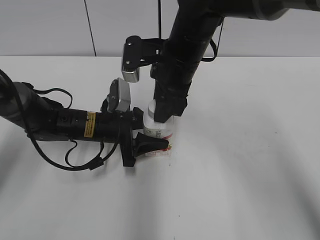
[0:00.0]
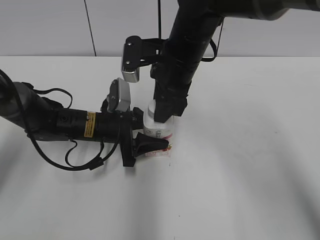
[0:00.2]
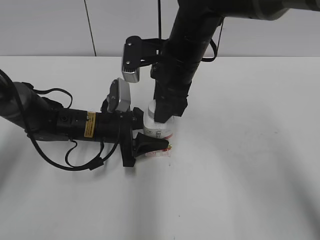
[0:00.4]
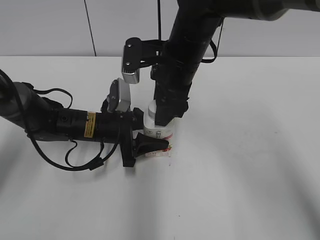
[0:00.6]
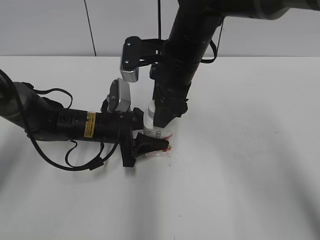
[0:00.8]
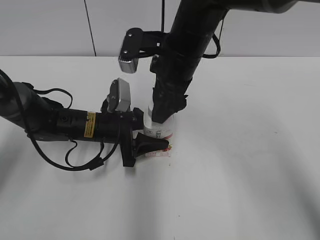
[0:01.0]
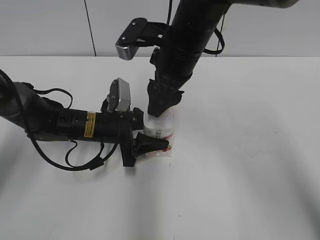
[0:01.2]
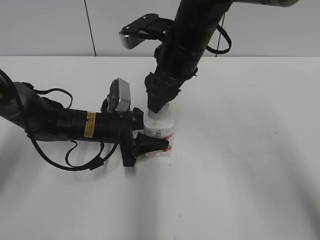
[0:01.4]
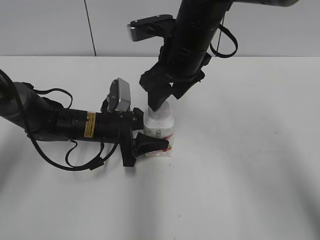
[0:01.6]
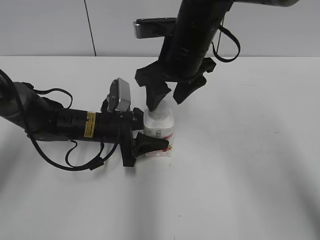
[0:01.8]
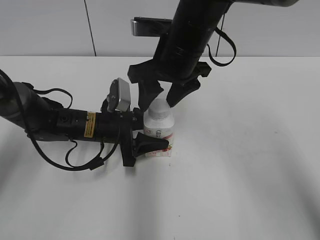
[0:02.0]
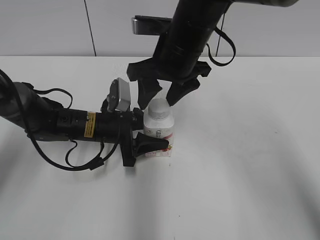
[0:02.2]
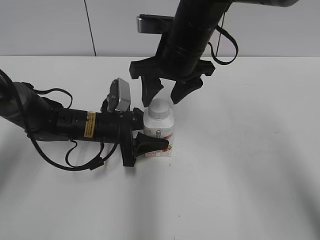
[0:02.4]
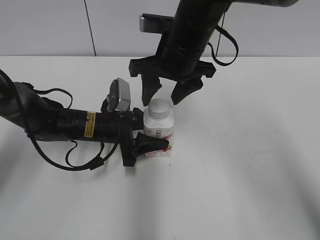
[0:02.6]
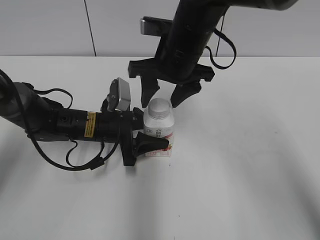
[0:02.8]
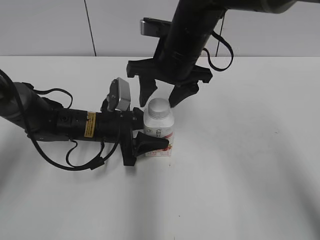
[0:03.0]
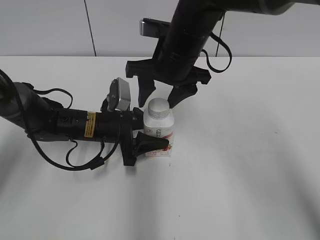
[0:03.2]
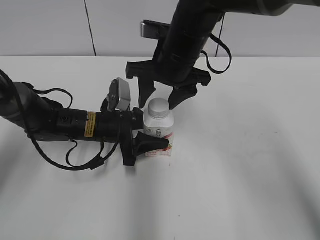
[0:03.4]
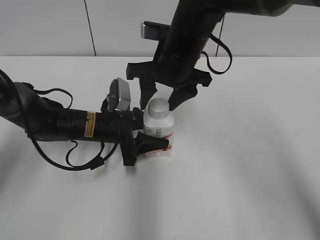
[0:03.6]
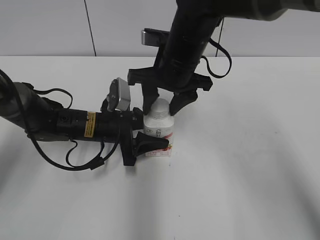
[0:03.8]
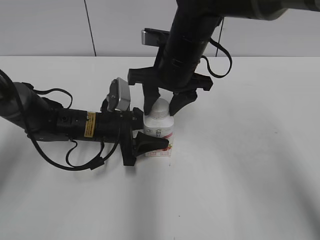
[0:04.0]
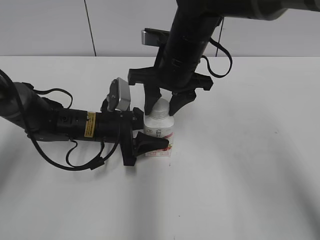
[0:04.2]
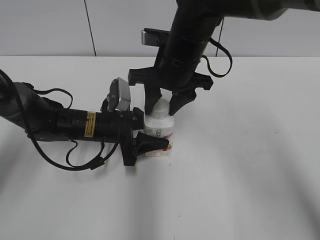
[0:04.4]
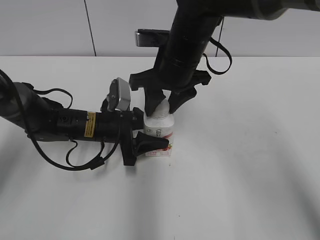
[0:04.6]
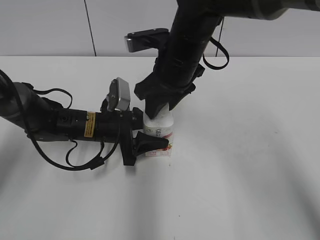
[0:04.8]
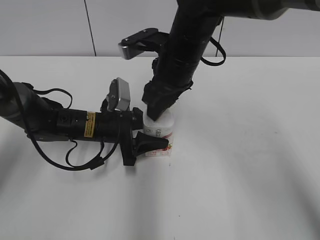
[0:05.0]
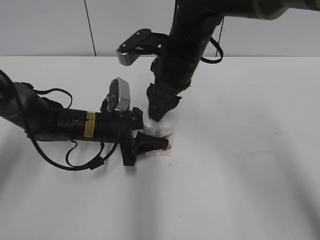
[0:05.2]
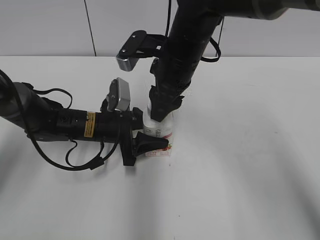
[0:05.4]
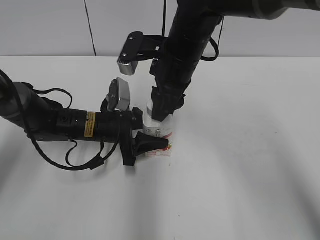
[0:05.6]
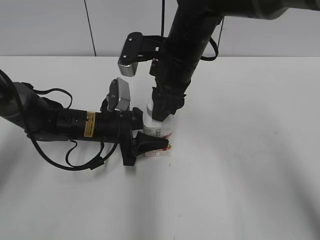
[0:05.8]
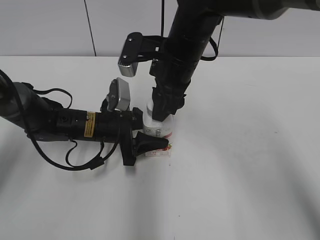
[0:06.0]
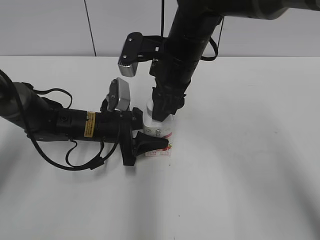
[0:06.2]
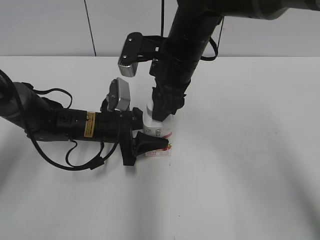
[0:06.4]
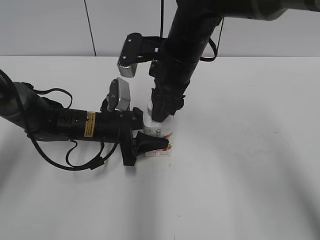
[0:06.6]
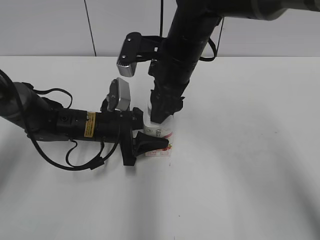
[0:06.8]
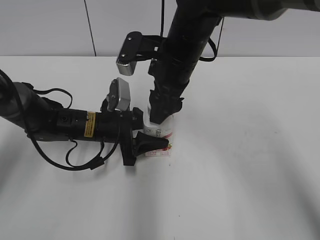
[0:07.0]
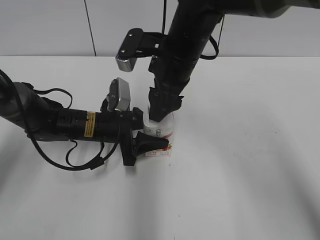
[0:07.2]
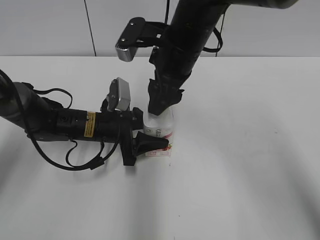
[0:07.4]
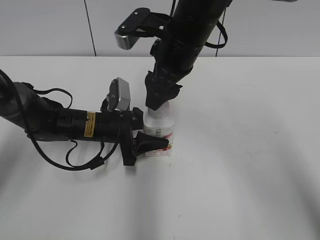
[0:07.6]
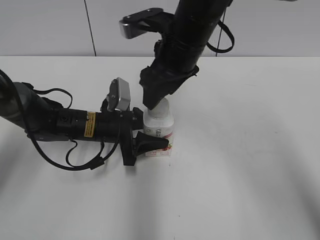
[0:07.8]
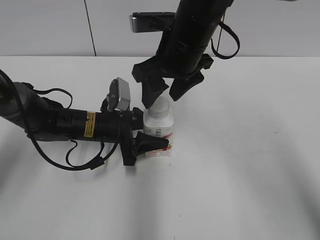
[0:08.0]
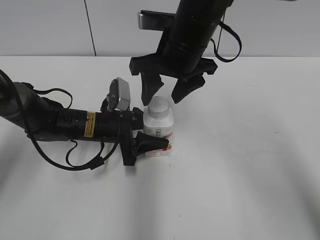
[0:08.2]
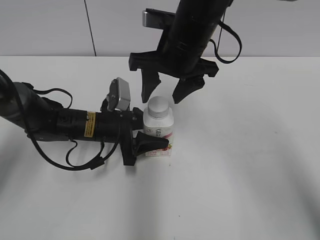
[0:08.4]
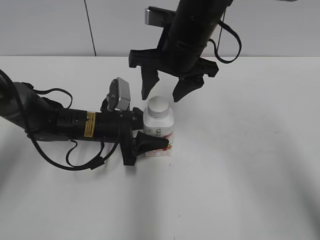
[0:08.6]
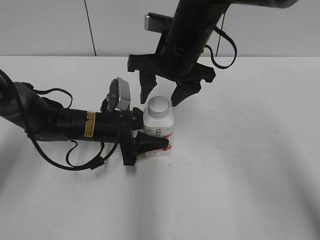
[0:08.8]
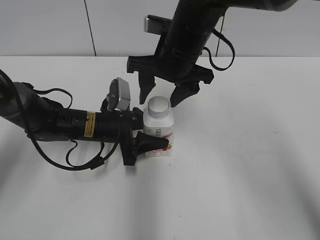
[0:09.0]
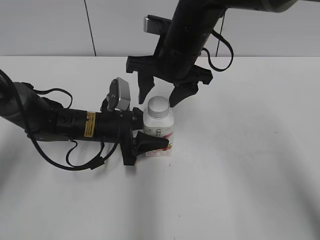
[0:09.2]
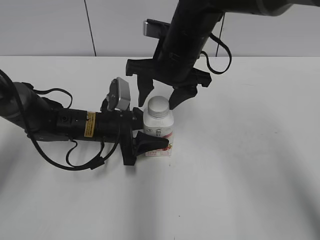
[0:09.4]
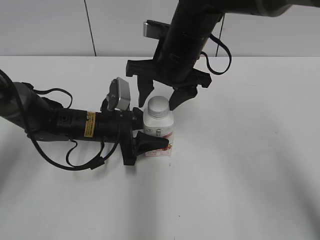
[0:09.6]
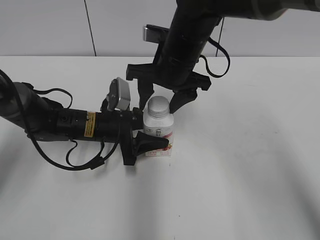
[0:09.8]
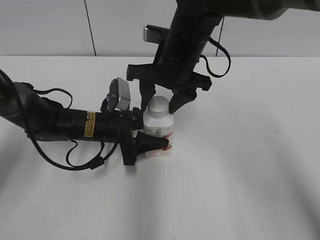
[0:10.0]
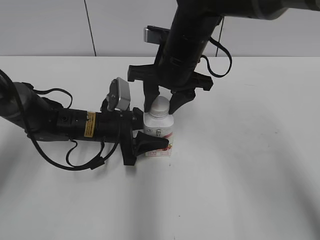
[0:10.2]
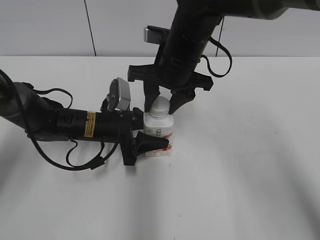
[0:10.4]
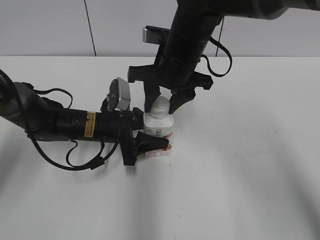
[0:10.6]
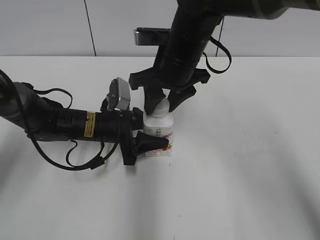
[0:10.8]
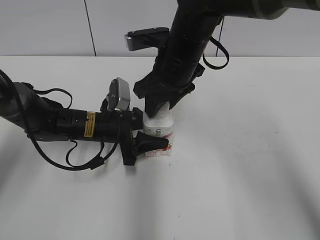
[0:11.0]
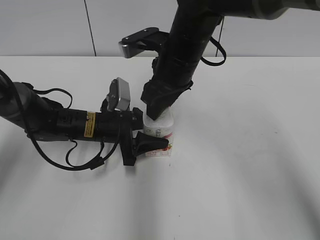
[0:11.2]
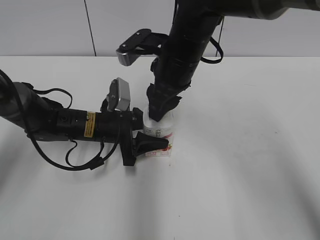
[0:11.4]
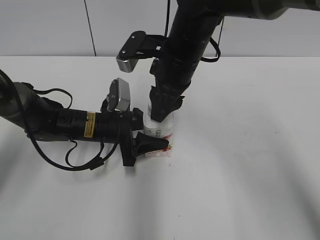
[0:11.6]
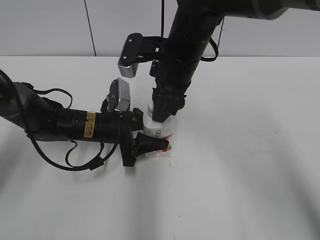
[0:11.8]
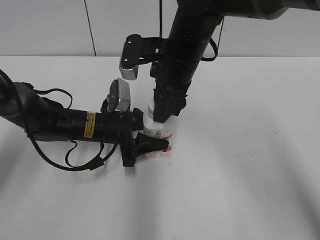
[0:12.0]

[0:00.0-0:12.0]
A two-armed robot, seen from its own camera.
0:00.0 to 0:01.6: The right gripper opens up.
0:03.0 to 0:04.4: The right gripper closes.
0:06.0 to 0:07.6: The right gripper opens its fingers.
0:09.0 to 0:10.4: The right gripper closes.

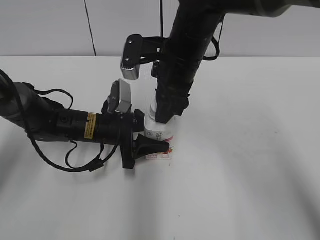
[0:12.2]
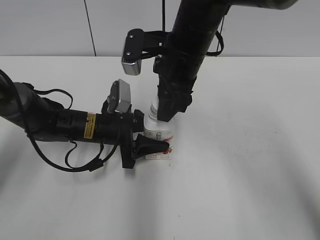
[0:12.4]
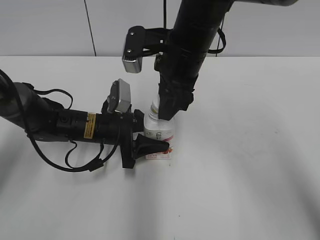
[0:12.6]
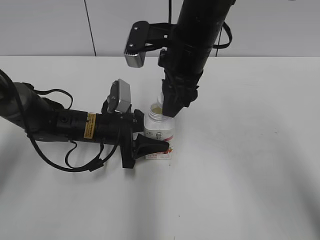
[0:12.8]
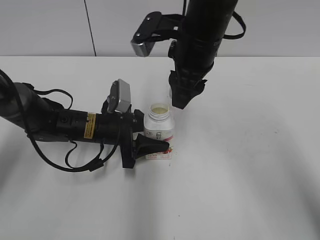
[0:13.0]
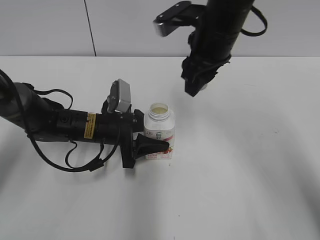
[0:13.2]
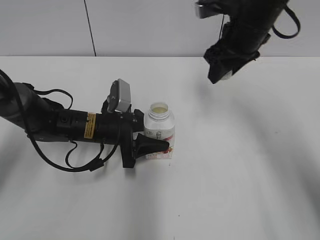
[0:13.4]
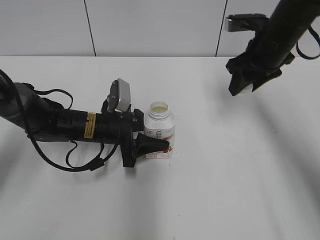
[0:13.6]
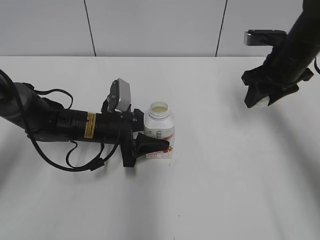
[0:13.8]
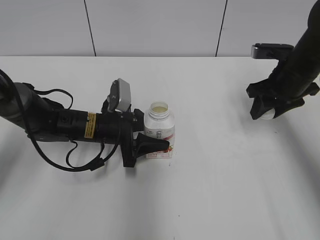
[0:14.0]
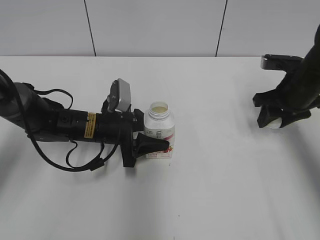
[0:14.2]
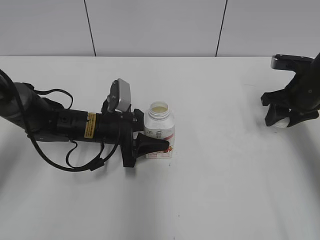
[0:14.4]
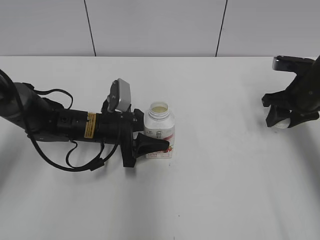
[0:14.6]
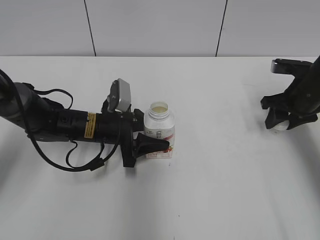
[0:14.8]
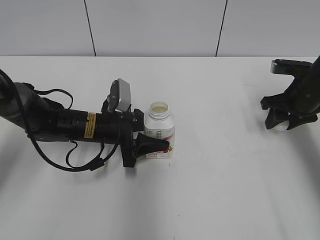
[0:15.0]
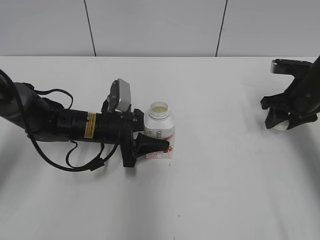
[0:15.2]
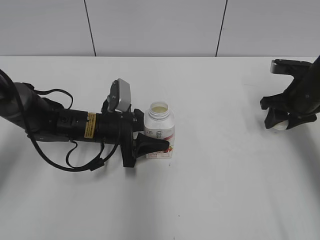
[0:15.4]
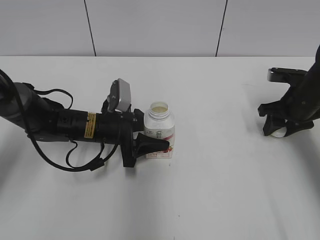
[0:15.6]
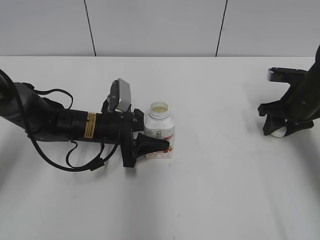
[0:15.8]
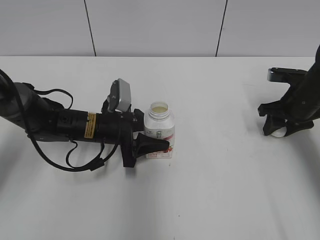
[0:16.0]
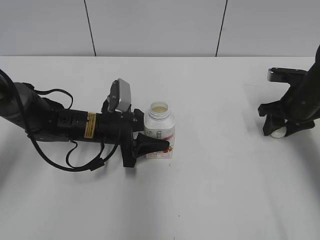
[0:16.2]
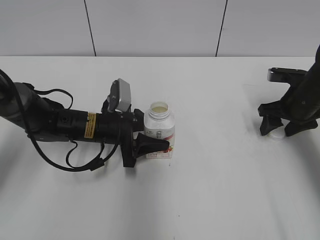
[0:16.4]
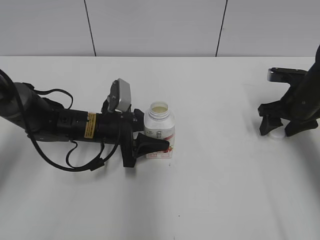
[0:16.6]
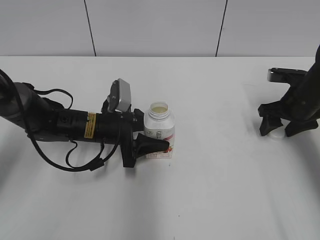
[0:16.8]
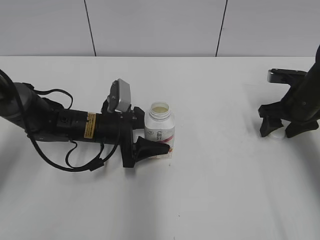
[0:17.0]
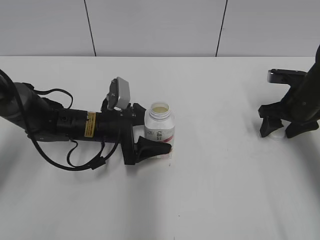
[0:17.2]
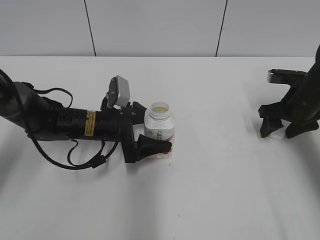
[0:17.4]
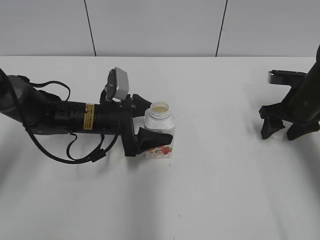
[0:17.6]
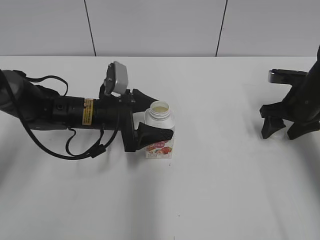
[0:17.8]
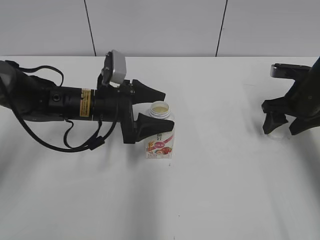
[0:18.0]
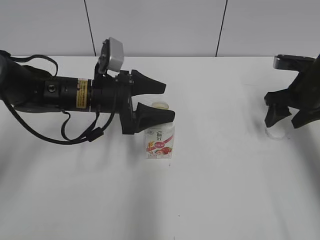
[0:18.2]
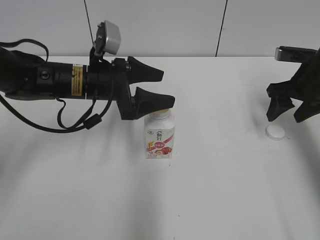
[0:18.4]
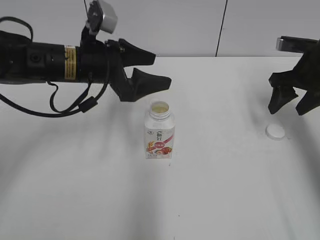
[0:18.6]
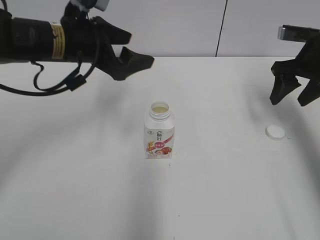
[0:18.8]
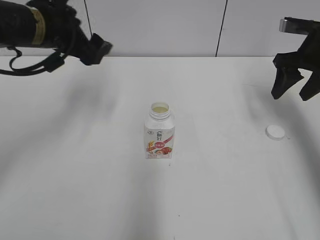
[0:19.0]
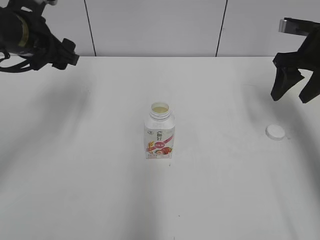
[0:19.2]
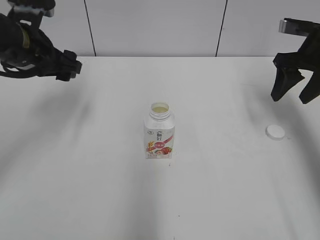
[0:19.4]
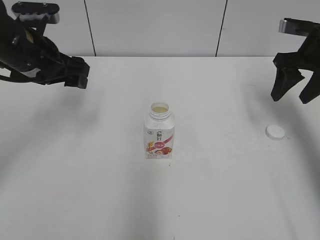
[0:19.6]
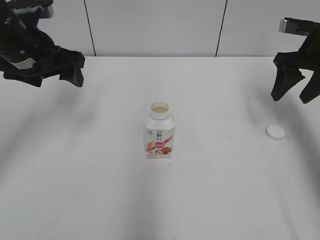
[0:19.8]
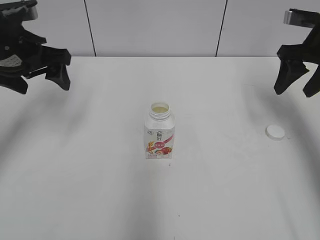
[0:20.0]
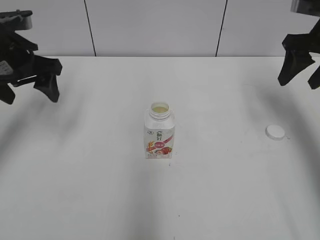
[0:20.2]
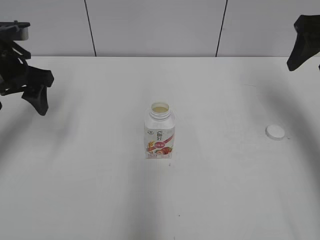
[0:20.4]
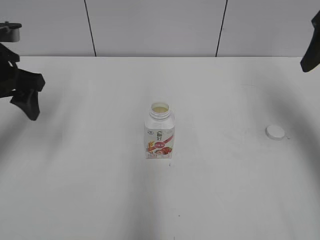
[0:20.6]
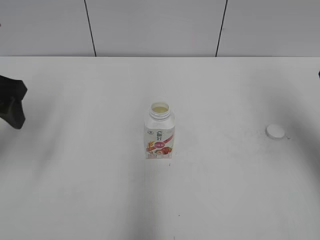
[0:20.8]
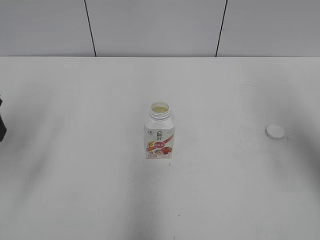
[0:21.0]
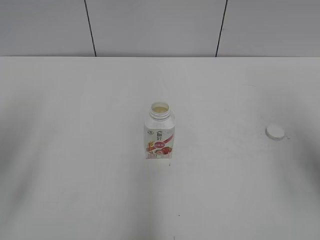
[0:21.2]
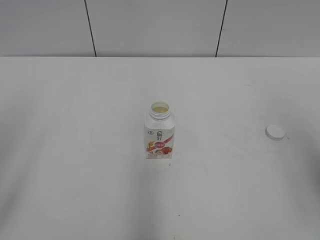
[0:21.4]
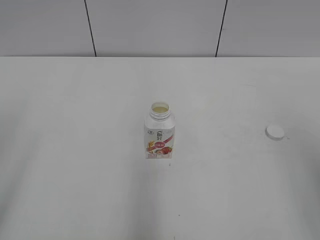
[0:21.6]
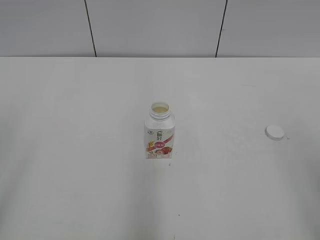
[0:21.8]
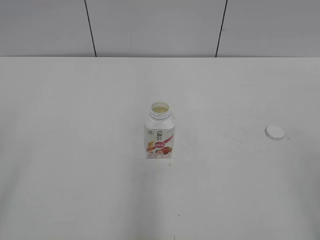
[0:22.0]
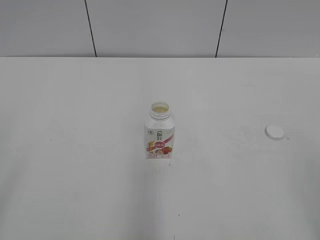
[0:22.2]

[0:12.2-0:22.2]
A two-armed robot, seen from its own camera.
Step, 0:12.4 to 0:16.2: Place the bottle cap on the right.
Step, 0:16.4 to 0:17.4: Place the Yili Changqing with the left hand.
0:12.2 to 0:13.6: The right gripper moves to the right, some 15 cm.
0:13.6 to 0:15.0: The right gripper shifts roughly 15 cm to the right and downward.
0:15.0 to 0:16.4: The right gripper opens up.
0:16.4 to 0:18.0: The left gripper heads upward, covering roughly 5 cm, and opens up.
0:18.0 to 0:19.4: The right gripper travels upward by about 10 cm, while the left gripper shifts roughly 15 cm upward and to the left.
0:19.4 to 0:20.8: The right gripper shifts some 15 cm backward and upward; the left gripper is displaced backward by about 10 cm.
0:20.8 to 0:22.2: The two grippers go roughly 25 cm backward.
